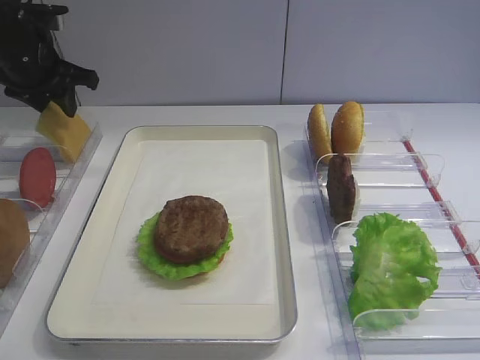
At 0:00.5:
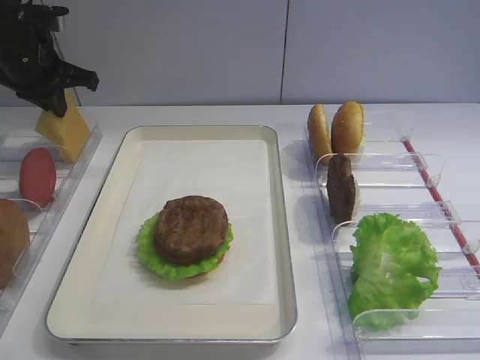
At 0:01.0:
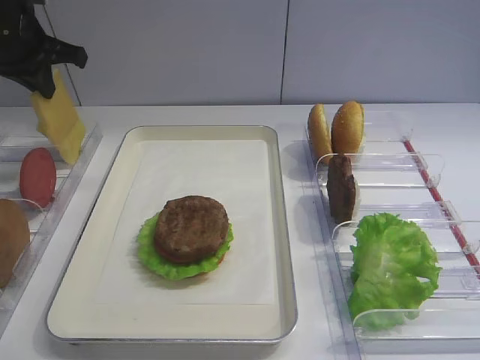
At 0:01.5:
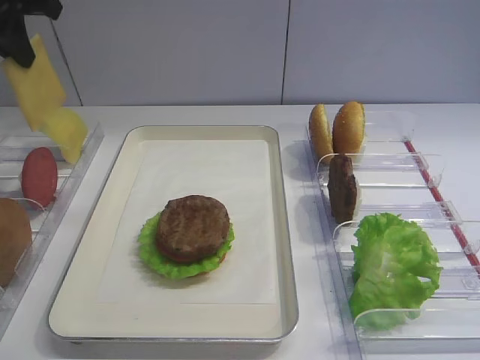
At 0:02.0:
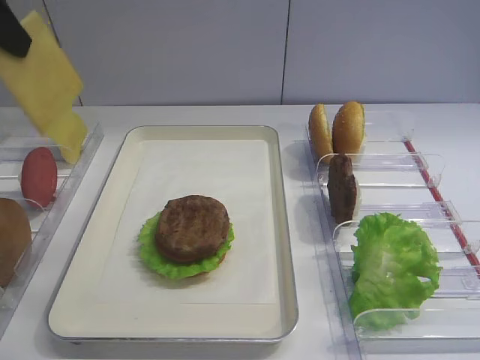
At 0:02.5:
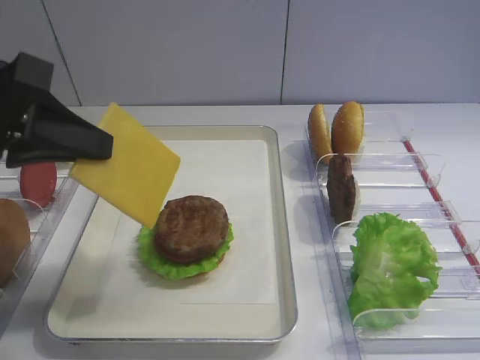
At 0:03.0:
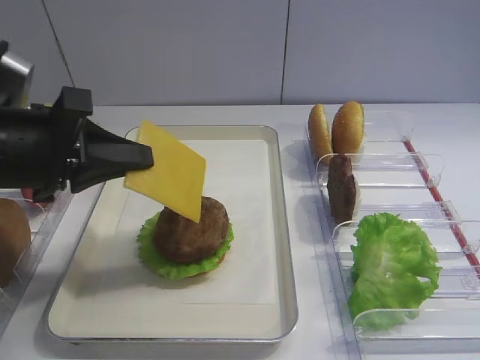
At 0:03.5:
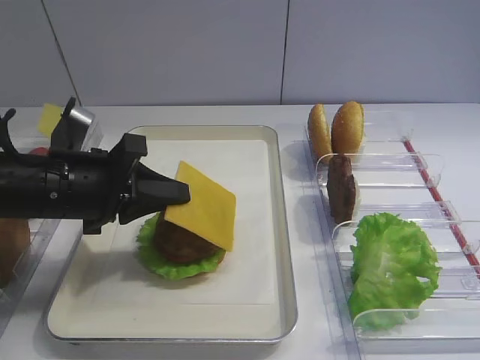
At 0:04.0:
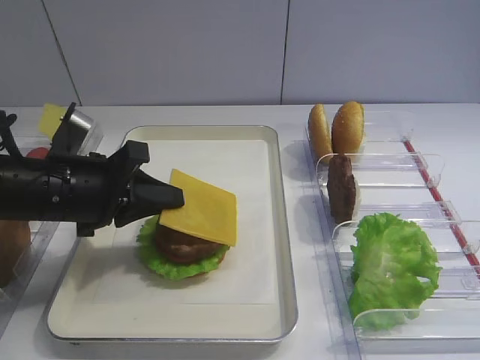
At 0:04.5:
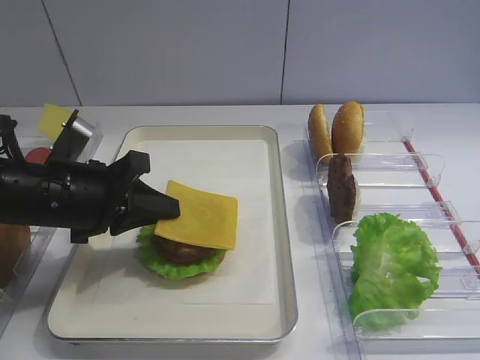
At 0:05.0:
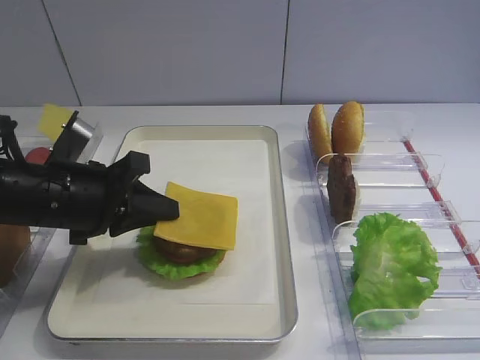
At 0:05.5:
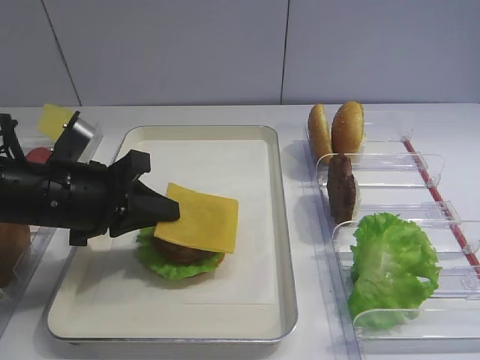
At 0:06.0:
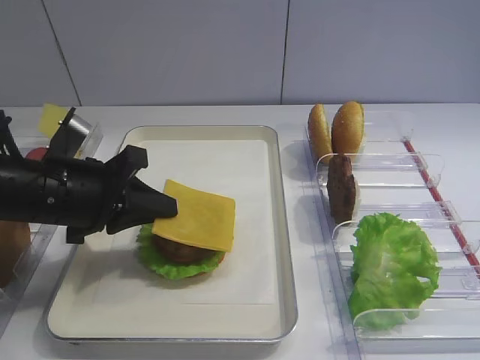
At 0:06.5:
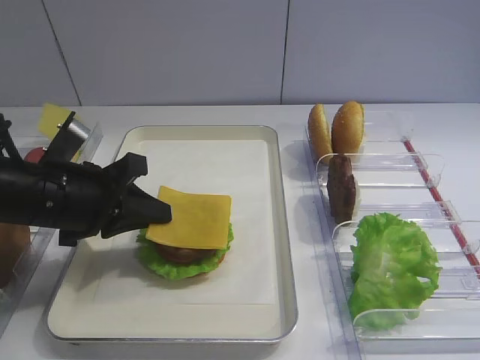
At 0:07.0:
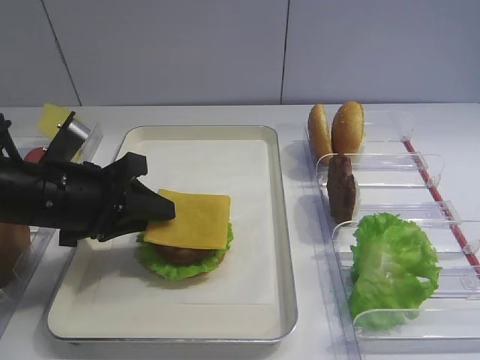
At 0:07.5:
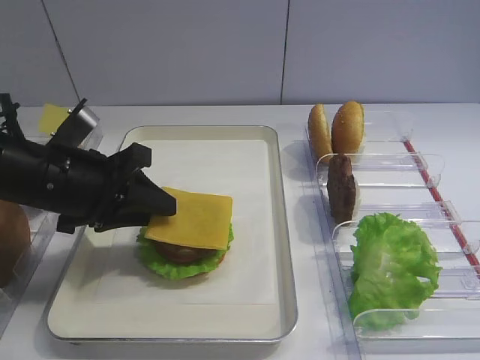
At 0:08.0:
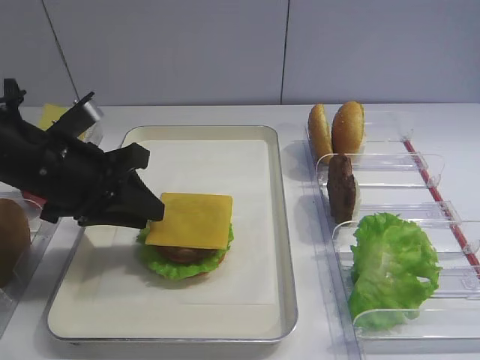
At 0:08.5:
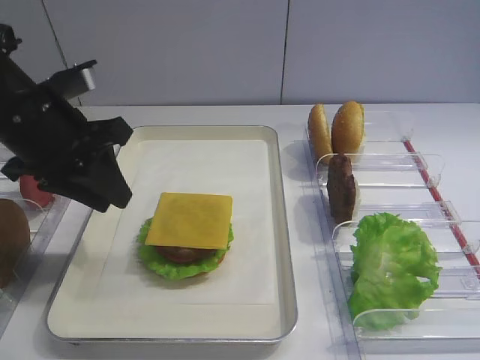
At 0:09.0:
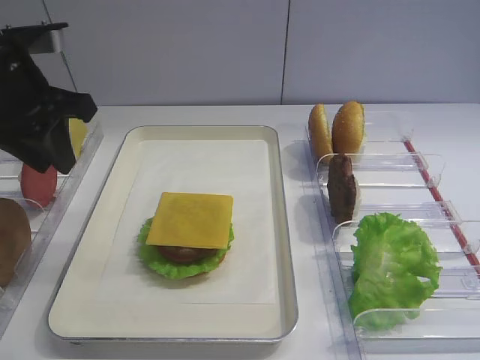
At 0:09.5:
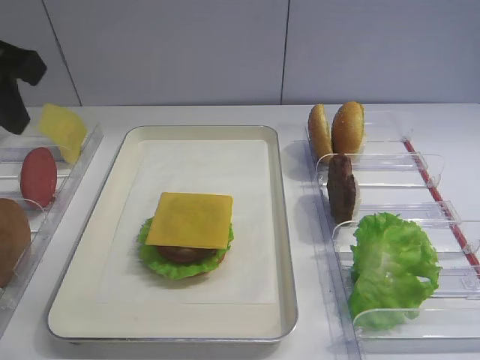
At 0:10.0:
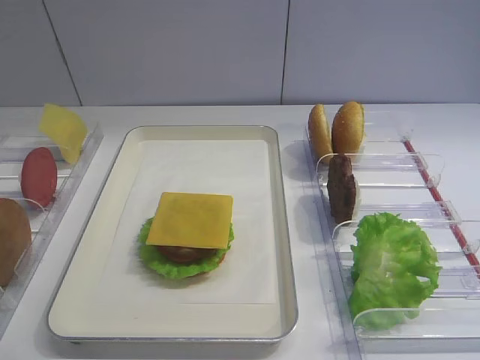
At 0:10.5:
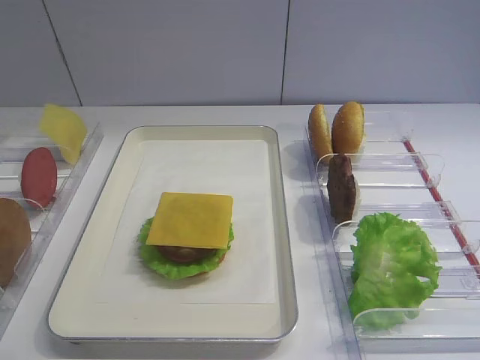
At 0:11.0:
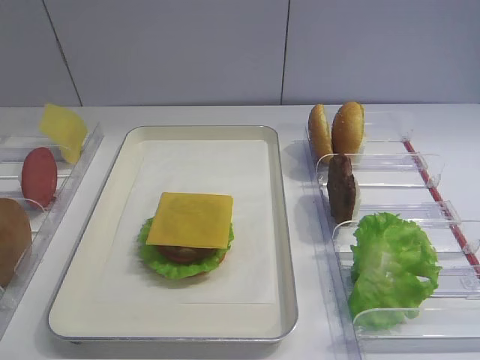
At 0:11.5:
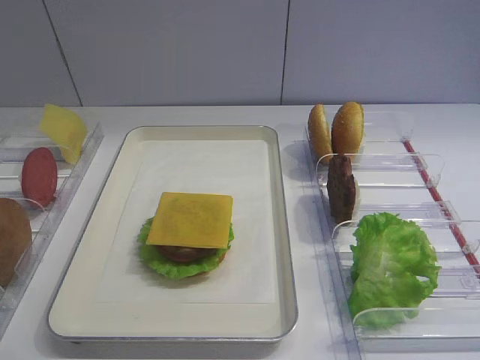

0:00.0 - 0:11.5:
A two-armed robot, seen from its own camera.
Step, 0:01.5 - 0:08.5: Place the cheese slice on the cutlet with the left gripper.
0:00.0 - 0:02.0: The left gripper shifts about 25 cm backward and upward, and closes its fingers.
0:02.0 - 0:04.0: The left gripper shifts approximately 20 cm downward.
0:04.0 - 0:06.0: The grippers stay close to where they were, moving slightly.
0:06.0 - 0:07.5: The left gripper opens.
0:07.5 - 0:09.5: The left gripper travels upward by some 15 cm.
0:09.5 - 0:11.5: The left gripper heads backward, covering some 30 cm.

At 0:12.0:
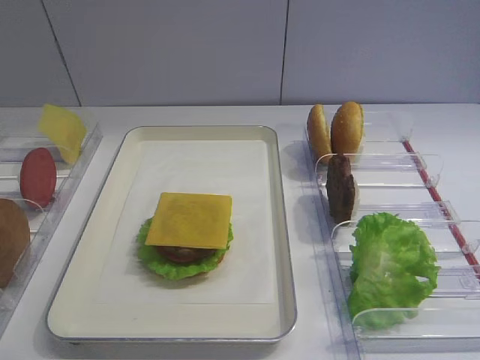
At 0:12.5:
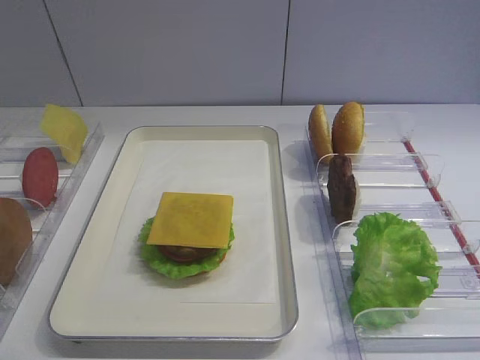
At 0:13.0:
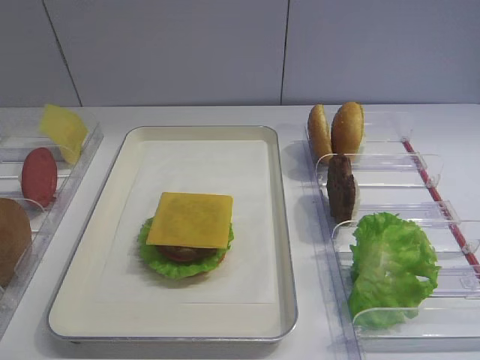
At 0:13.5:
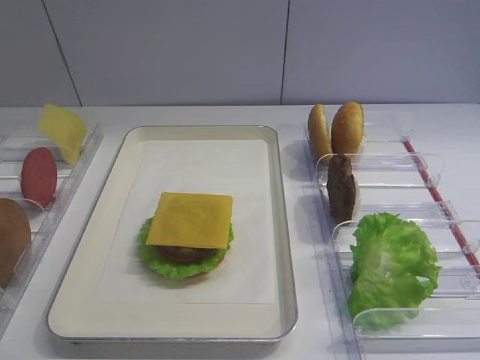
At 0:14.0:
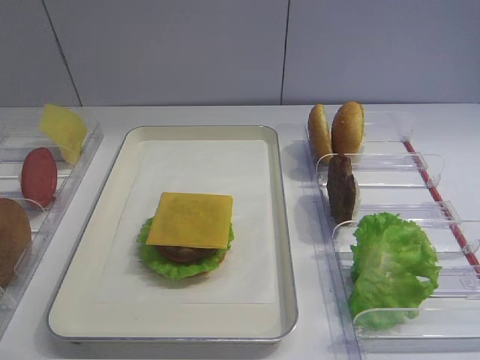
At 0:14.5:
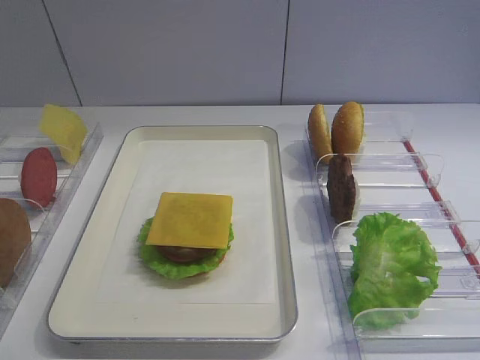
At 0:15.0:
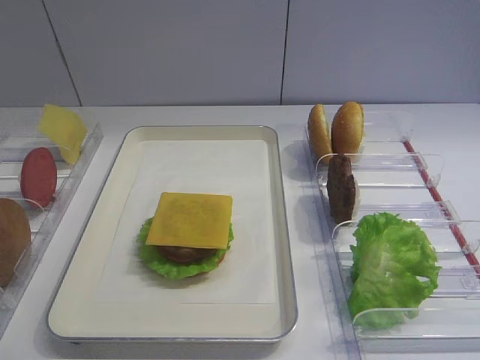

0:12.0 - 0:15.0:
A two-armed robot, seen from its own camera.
0:12.0 - 0:15.0: The two grippers keep their place.

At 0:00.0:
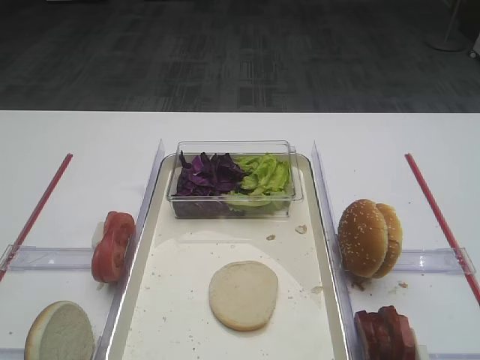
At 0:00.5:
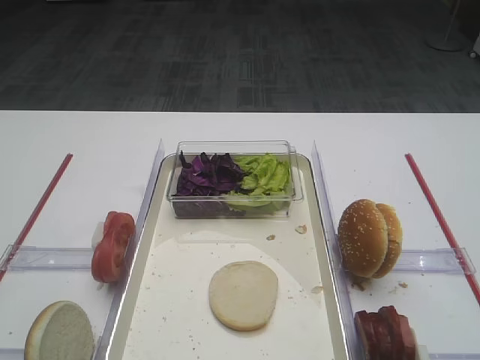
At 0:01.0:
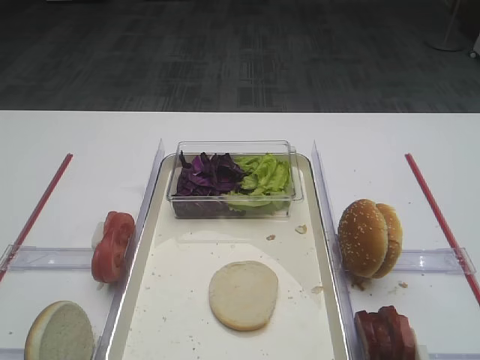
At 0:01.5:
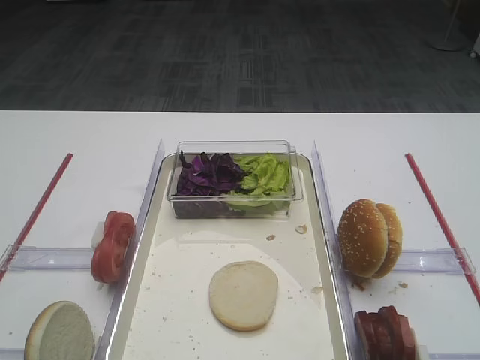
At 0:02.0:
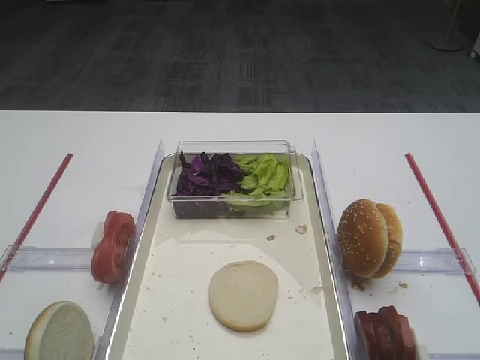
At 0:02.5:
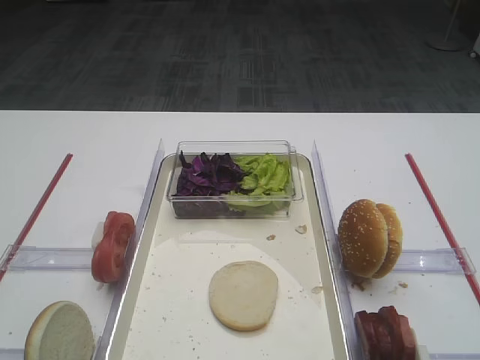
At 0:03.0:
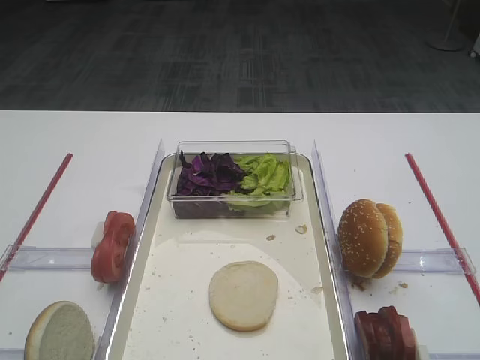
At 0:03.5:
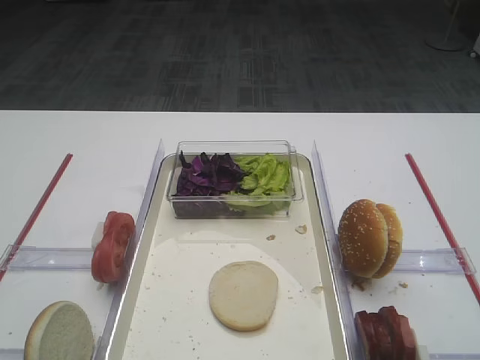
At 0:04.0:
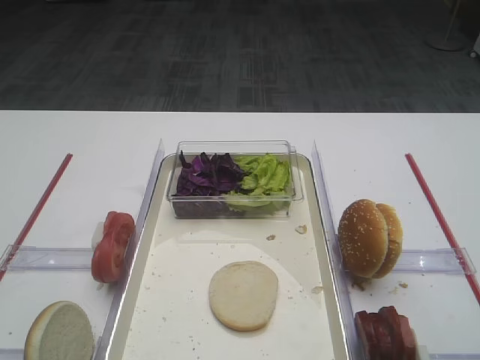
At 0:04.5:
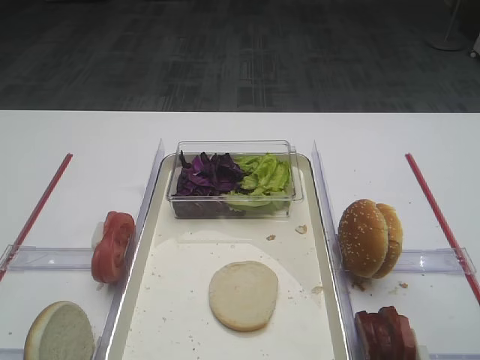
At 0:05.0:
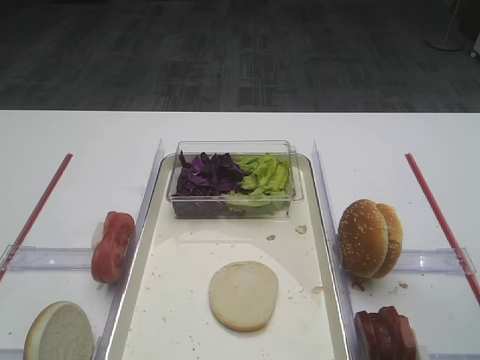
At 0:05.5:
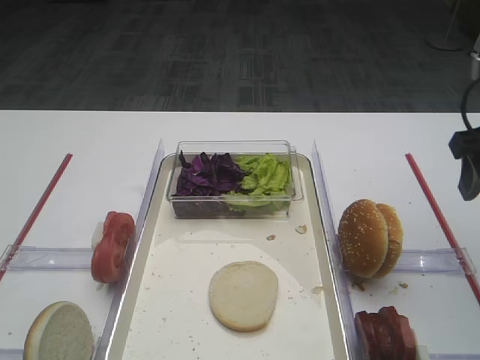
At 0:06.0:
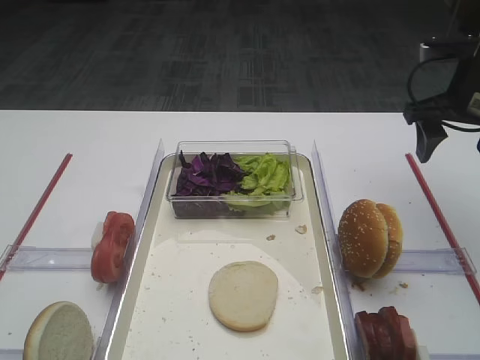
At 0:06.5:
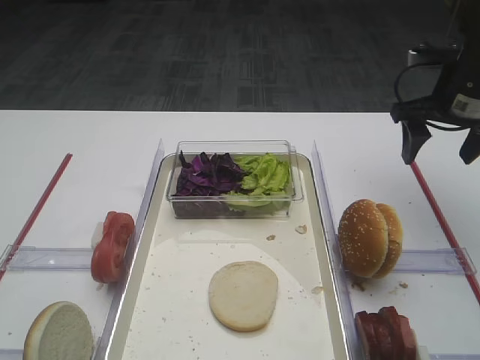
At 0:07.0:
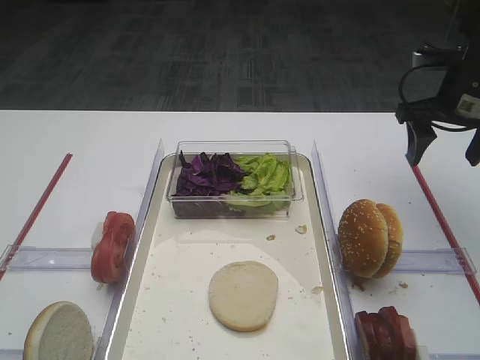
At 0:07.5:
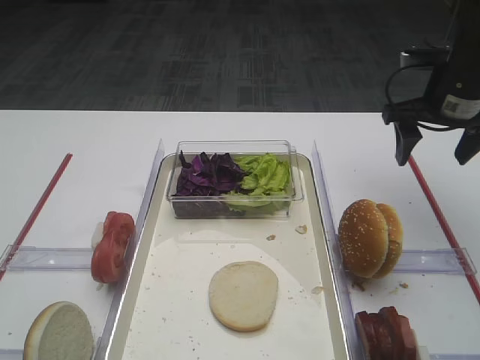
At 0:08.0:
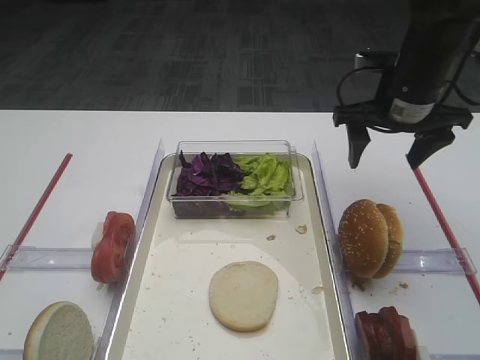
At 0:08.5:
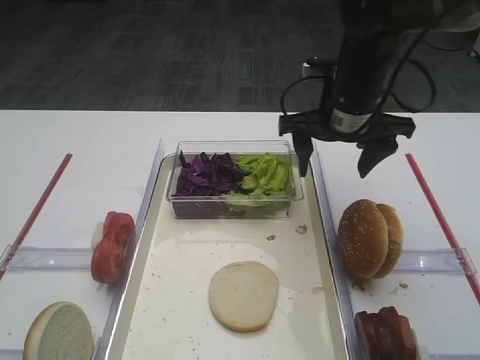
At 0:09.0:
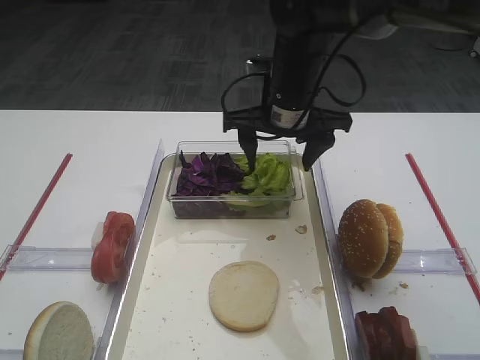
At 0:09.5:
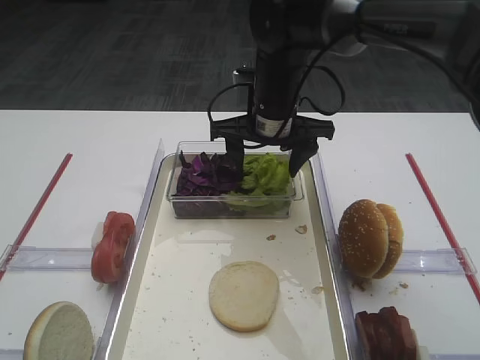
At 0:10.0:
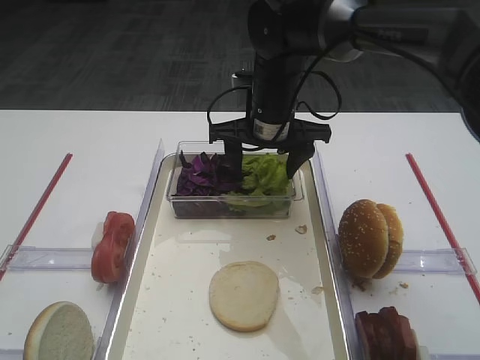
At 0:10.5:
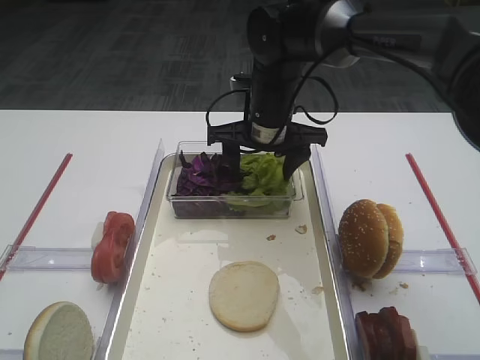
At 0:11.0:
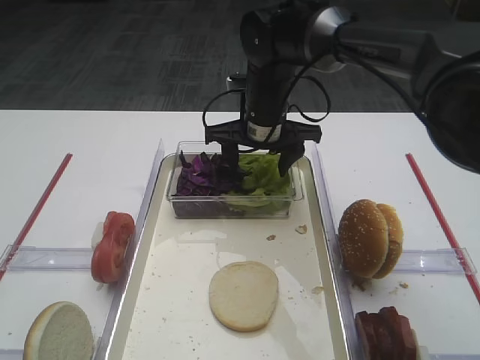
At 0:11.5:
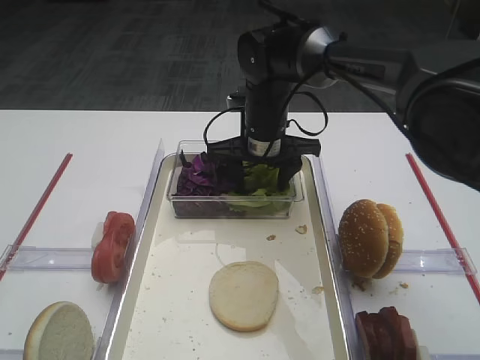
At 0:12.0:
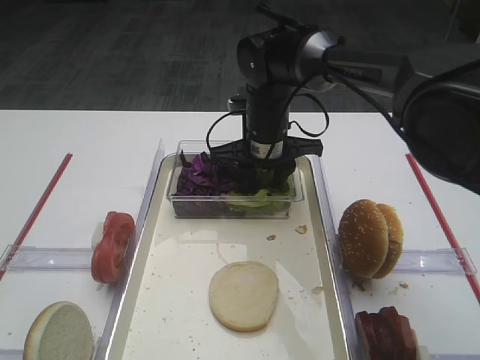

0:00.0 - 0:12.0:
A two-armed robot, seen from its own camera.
0:04.0 - 0:06.0: The right gripper is displaced forward by some 30 cm.
0:06.0 - 0:08.0: The right gripper goes about 10 cm to the left.
0:08.0 - 0:10.0: The right gripper heads to the left, covering some 15 cm.
0:10.0 - 0:12.0: The right gripper closes.
